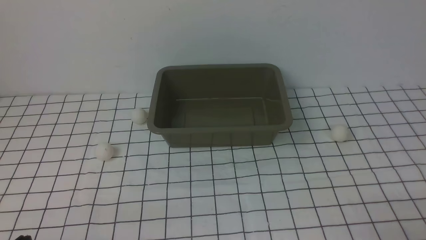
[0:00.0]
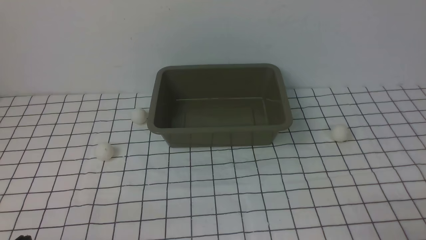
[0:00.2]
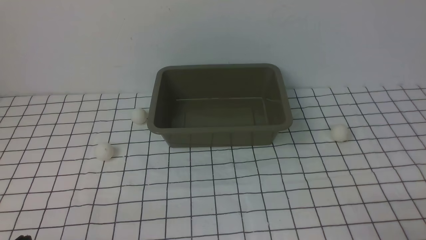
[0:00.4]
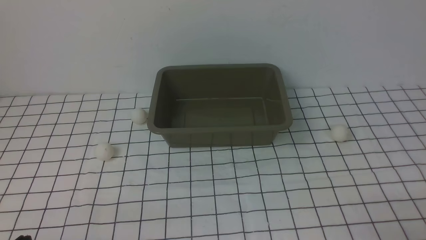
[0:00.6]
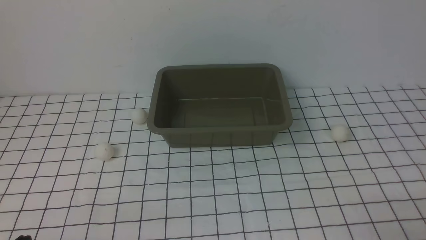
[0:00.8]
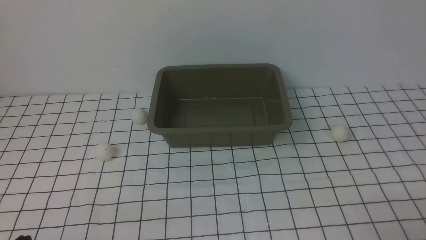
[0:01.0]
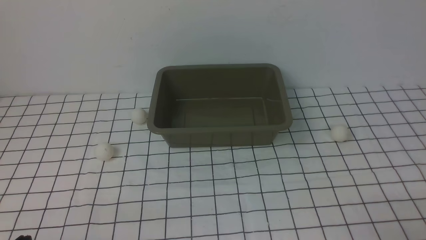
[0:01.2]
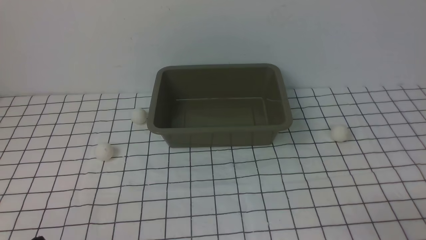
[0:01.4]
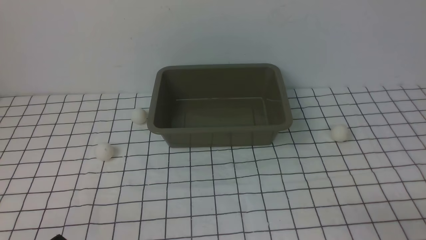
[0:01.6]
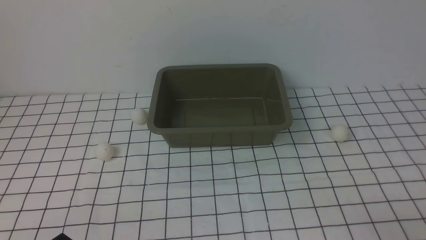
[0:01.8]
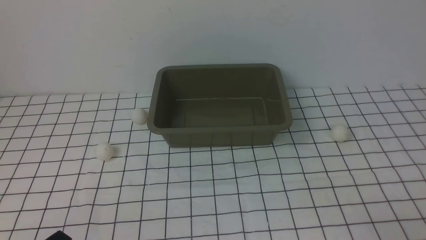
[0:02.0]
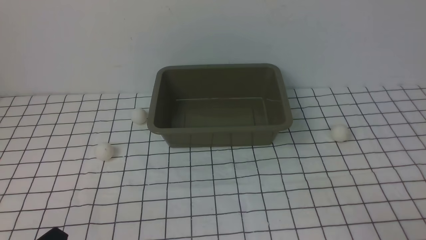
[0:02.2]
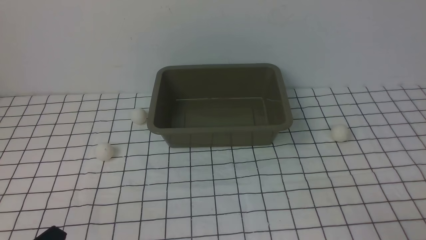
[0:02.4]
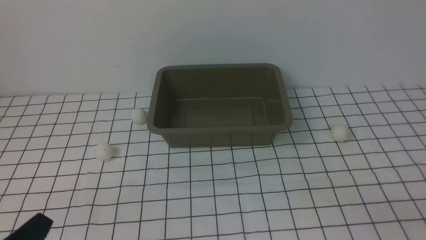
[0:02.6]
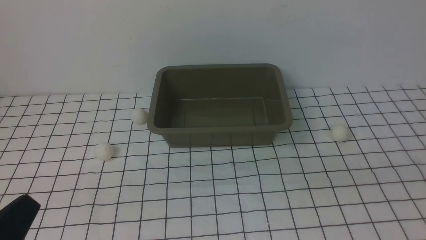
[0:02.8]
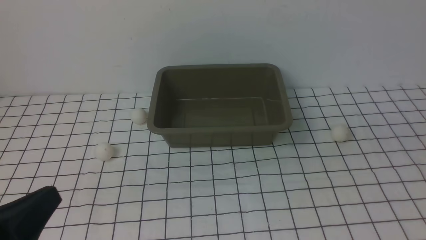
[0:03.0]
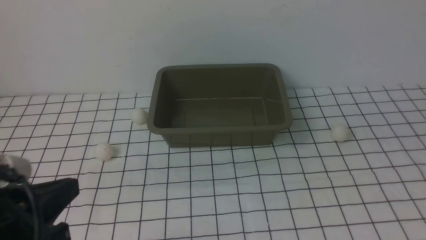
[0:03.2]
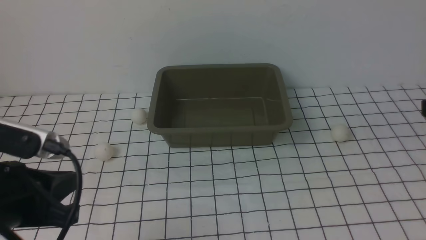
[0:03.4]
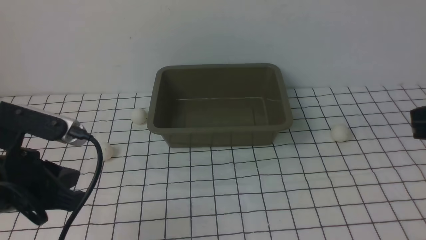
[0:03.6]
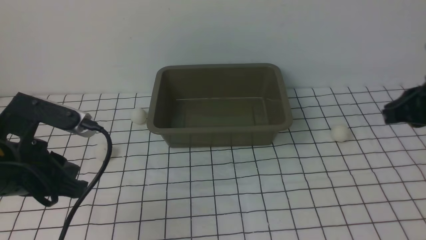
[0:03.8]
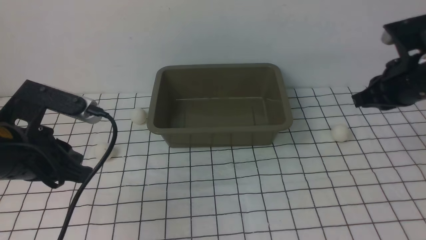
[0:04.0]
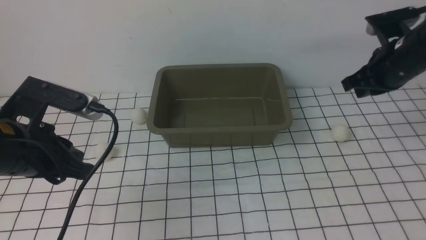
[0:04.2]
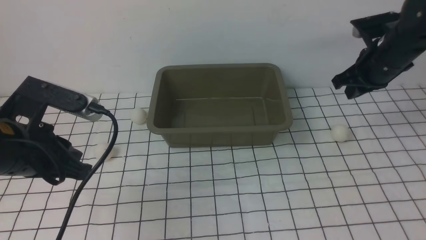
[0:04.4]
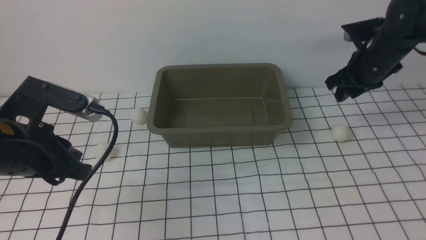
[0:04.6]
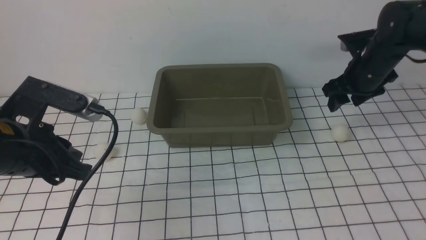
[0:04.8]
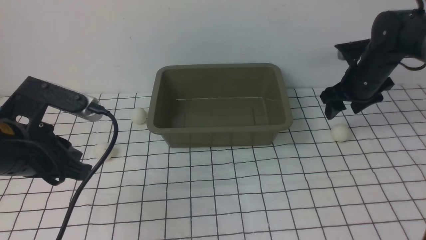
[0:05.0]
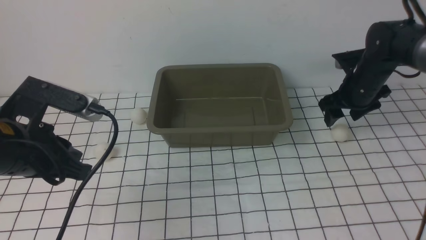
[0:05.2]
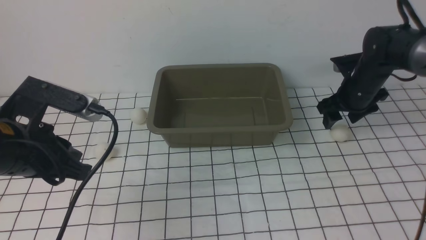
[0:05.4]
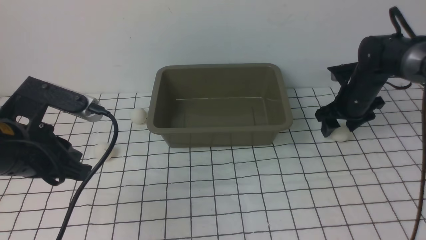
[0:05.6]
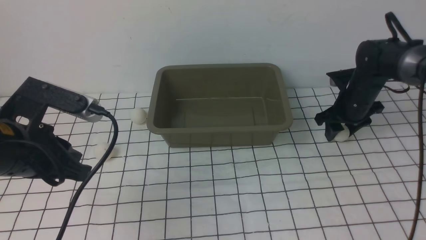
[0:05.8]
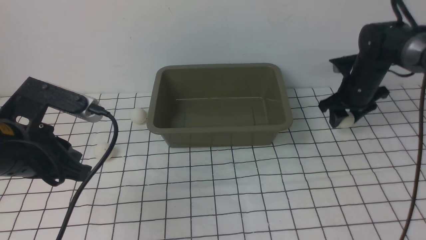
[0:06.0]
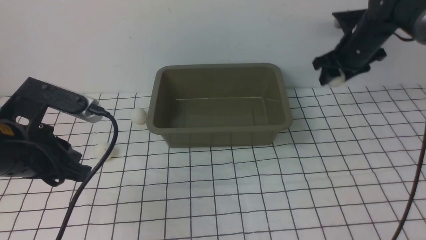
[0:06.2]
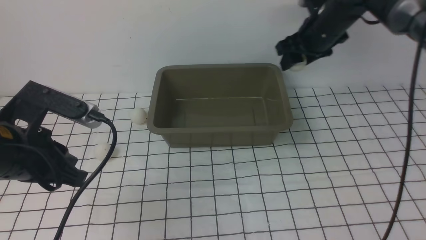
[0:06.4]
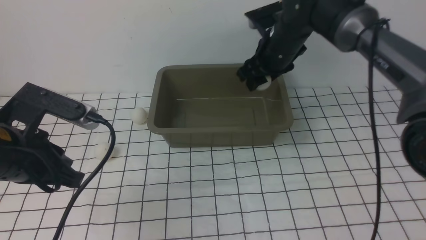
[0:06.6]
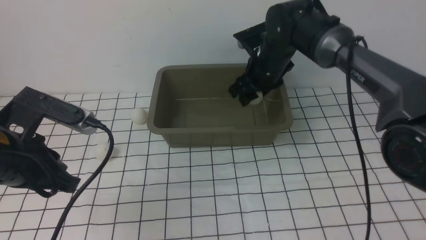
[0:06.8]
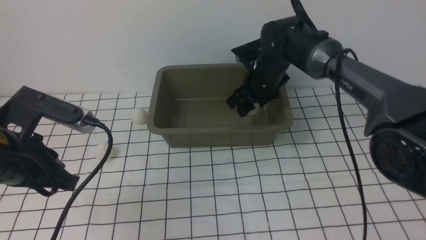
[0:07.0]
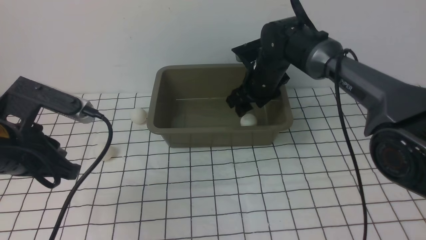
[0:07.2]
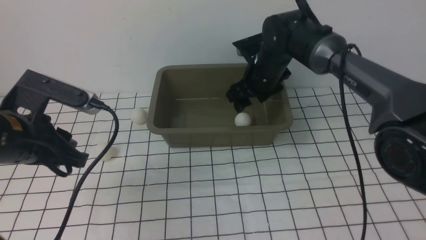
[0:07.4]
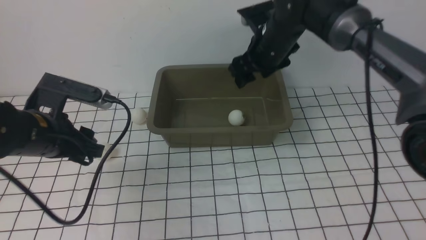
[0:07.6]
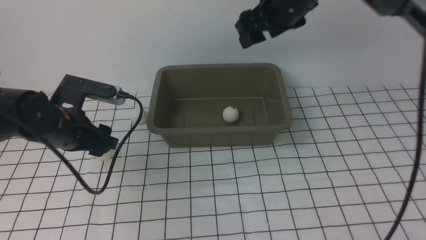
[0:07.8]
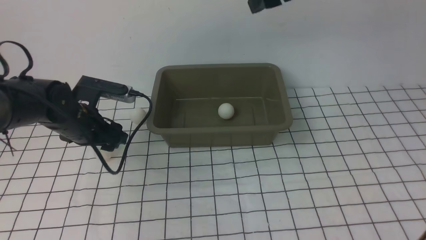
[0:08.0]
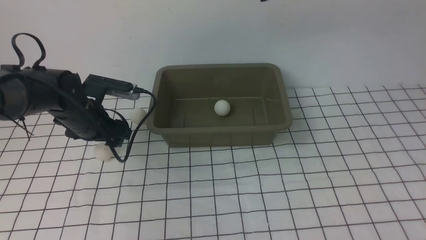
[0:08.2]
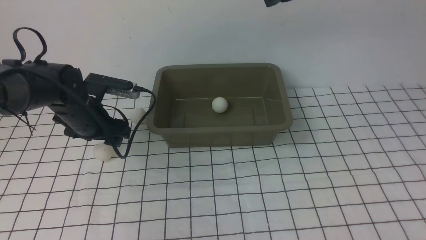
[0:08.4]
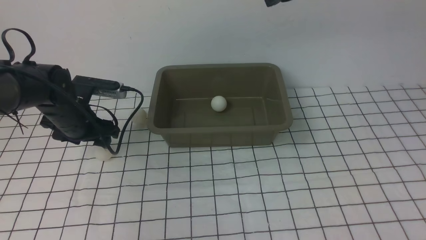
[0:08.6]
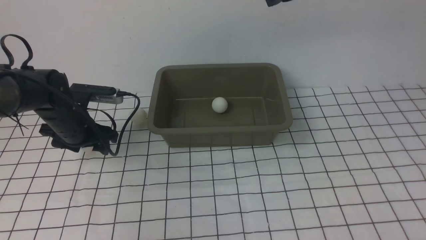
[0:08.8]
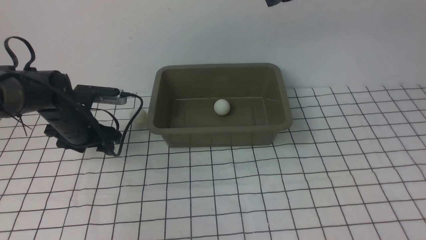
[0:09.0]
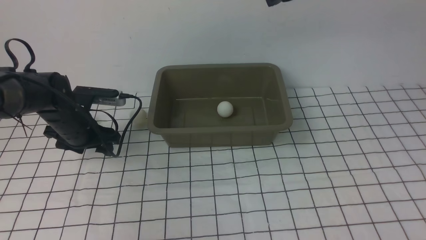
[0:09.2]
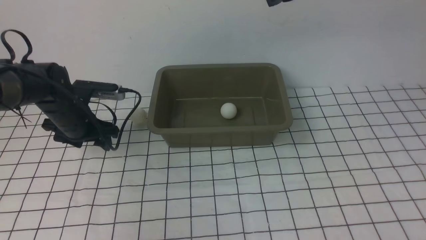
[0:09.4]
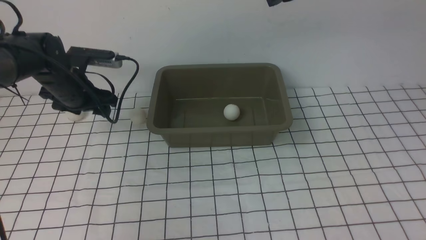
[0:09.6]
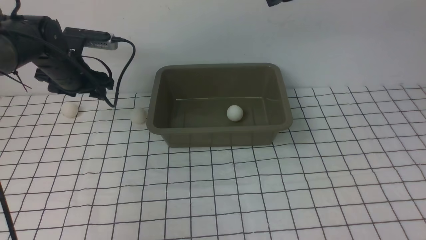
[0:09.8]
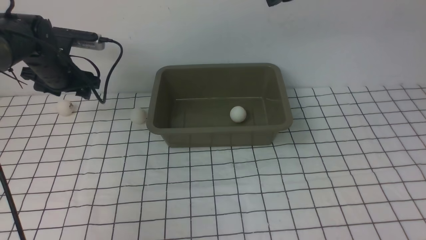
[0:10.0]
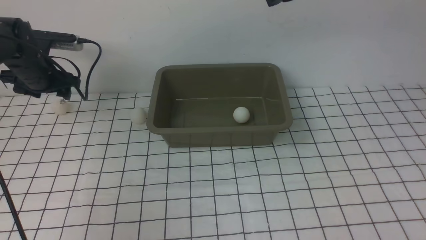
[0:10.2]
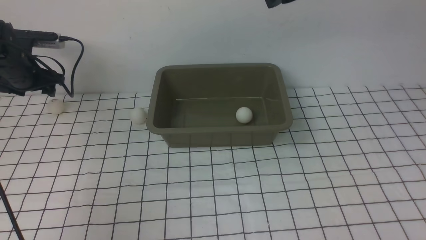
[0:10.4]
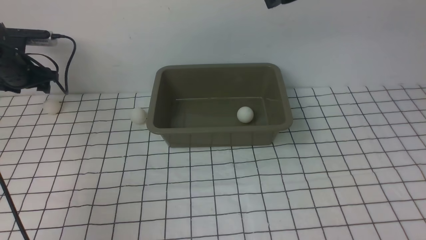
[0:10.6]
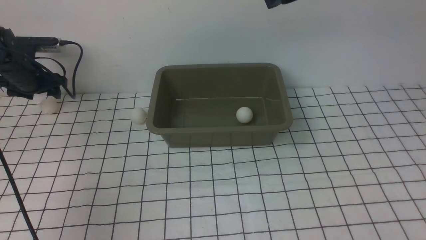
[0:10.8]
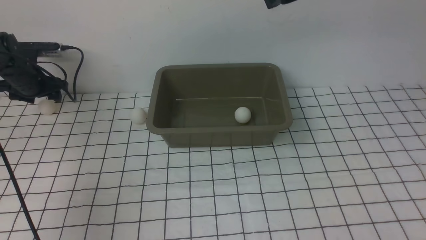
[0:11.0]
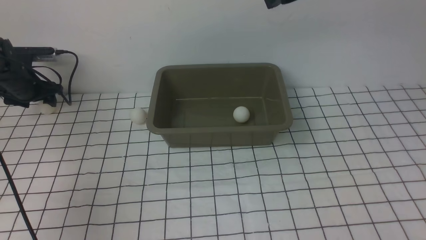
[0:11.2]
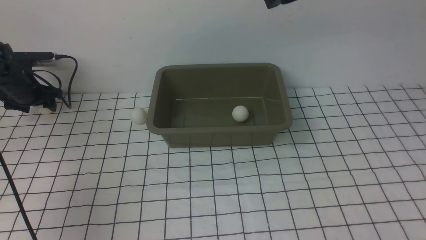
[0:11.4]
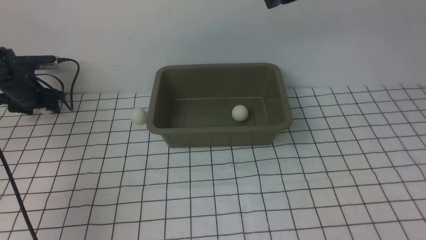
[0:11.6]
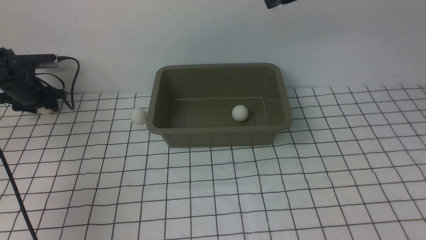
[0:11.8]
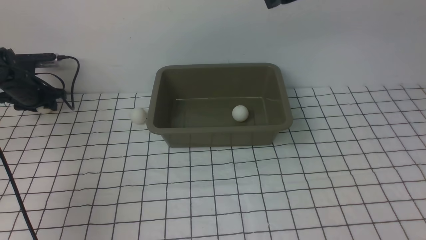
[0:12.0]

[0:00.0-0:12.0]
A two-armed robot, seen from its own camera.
Step, 0:00.0 to 0:06.0: use the right arm to clamp the table tennis ball closest to it.
Step, 0:06.2 to 0:07.4: use the right arm to put the table tennis ball into the box.
0:01.6 to 0:03.0: The left gripper shifts about 10 cm upward and forward.
0:03.0 to 0:04.4: The left gripper is displaced forward by about 10 cm; the right gripper shifts approximately 30 cm forward.
0:04.4 to 0:06.0: The right gripper heads downward, covering approximately 5 cm, and opens.
0:06.0 to 0:07.6: The left gripper moves forward and downward, some 10 cm, and opens its fingers. The right gripper travels upward and to the left by approximately 25 cm.
0:07.6 to 0:09.0: The right gripper is displaced upward and backward by some 10 cm; the left gripper heads forward and downward, covering about 10 cm.
0:09.0 to 0:10.4: The left gripper is displaced to the left and forward by some 15 cm.
0:10.4 to 0:12.0: The left gripper heads downward, covering about 5 cm.

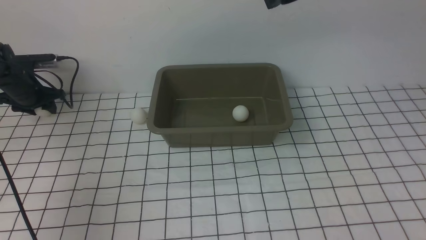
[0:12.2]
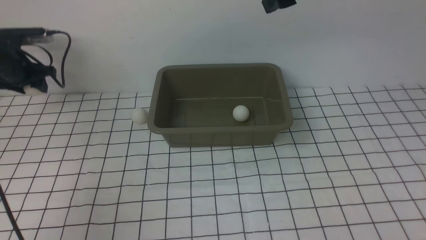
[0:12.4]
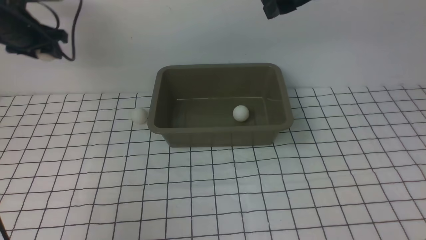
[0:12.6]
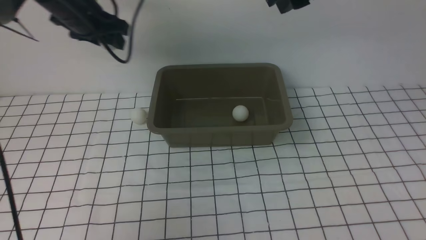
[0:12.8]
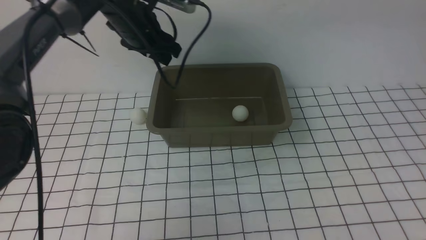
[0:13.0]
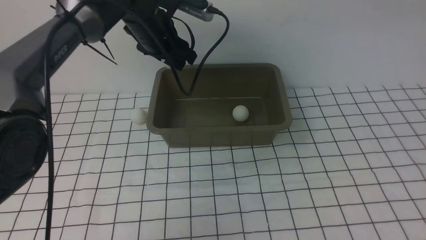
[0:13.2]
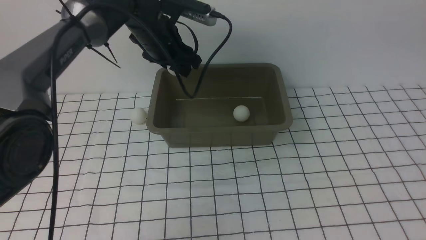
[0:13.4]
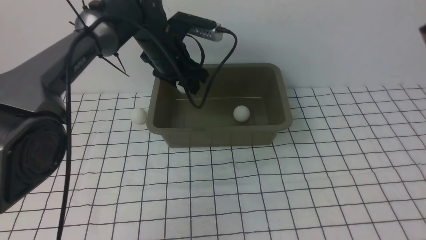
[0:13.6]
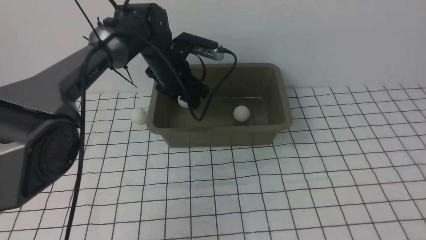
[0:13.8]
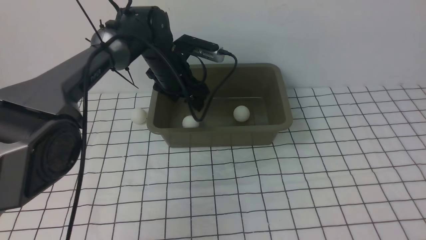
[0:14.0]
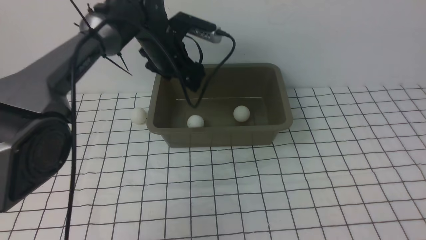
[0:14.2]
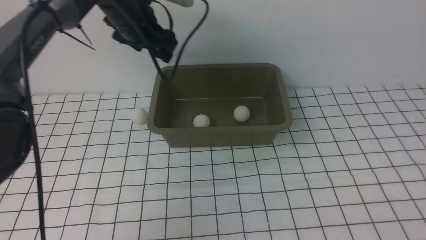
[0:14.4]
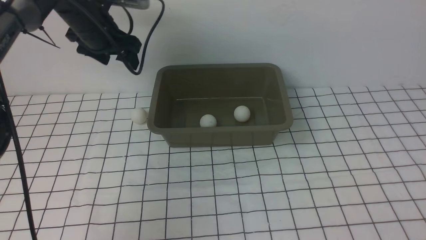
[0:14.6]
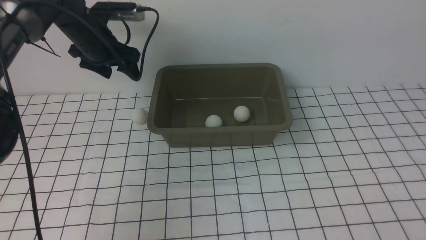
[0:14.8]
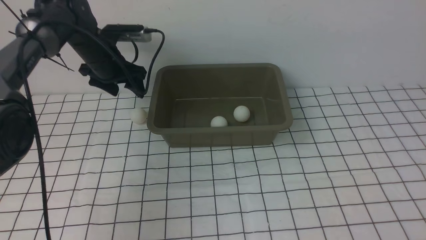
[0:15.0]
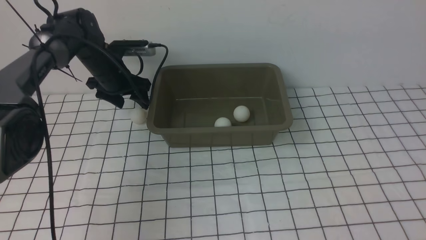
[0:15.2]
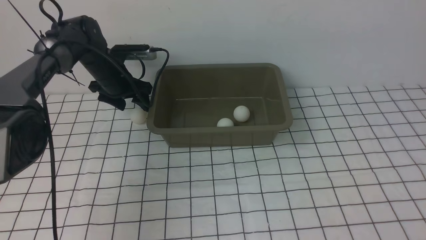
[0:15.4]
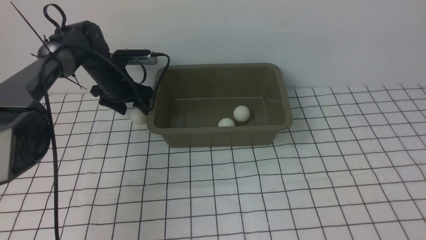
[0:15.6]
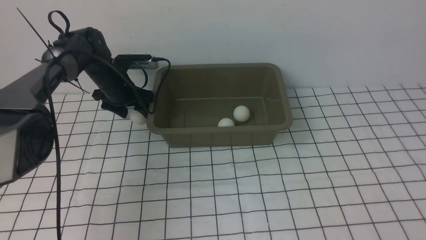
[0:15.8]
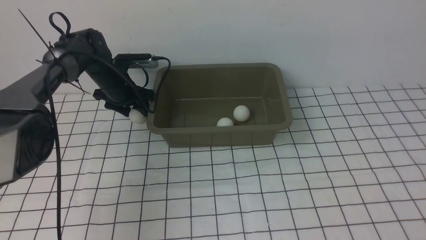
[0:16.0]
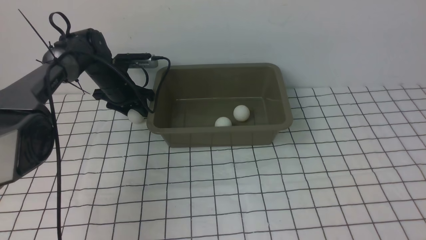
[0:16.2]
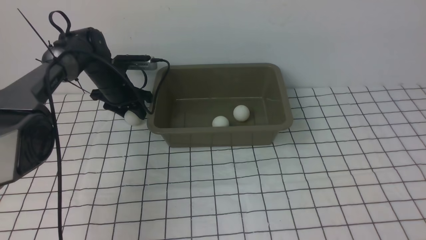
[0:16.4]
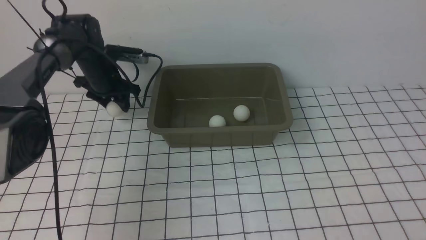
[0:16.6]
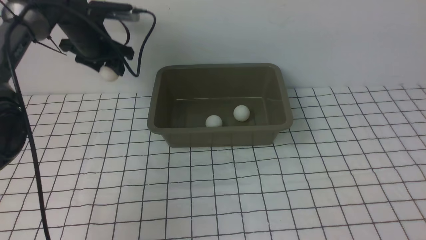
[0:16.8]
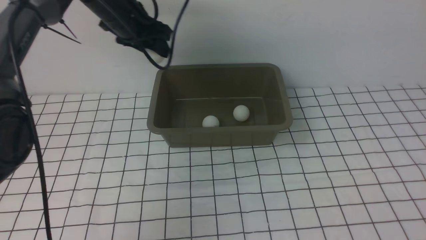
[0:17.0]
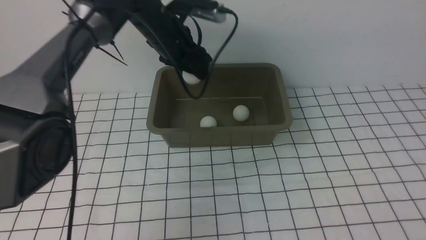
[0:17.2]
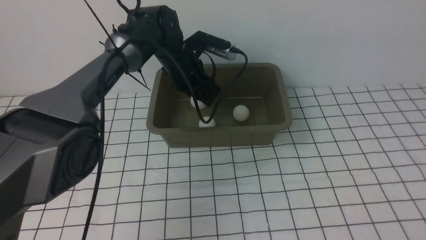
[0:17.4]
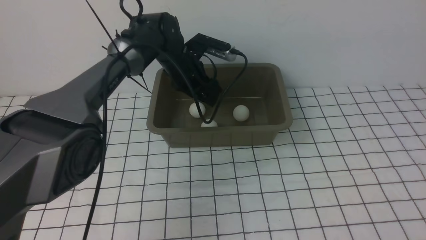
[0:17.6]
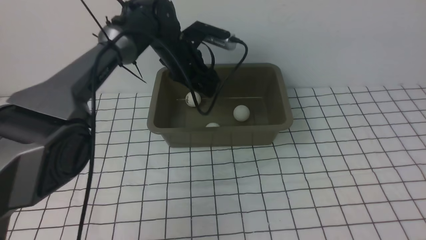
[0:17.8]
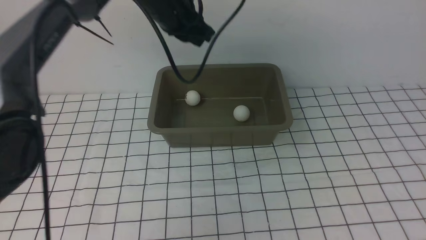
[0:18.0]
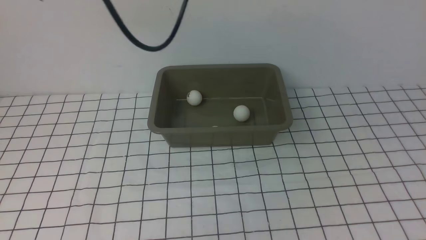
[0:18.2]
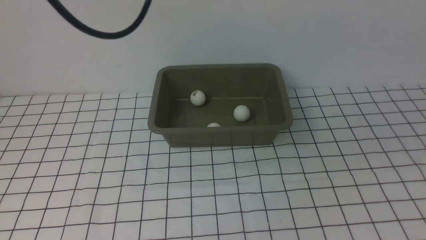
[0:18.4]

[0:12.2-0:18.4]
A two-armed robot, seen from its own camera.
Step, 0:12.6 to 0:14.0: use the left arm to put the table tennis ball into the box.
Step, 0:14.2 to 0:16.6: use the left arm to clamp the table tennis ball closest to it.
Step, 0:16.8 to 0:17.8: use the left arm to put the table tennis ball into the box.
0:12.2 to 0:13.8: The right gripper is displaced backward and to the right by some 20 cm, and closes up; the left gripper shifts about 30 cm to the right.
0:13.8 to 0:15.4: The left gripper moves to the left and downward, about 15 cm.
0:15.4 to 0:16.8: The left gripper travels upward by some 10 cm, and closes its fingers.
0:16.8 to 0:18.4: The right gripper goes some 15 cm backward and downward. Meanwhile the left gripper moves upward and backward, some 30 cm, and closes its fingers.
